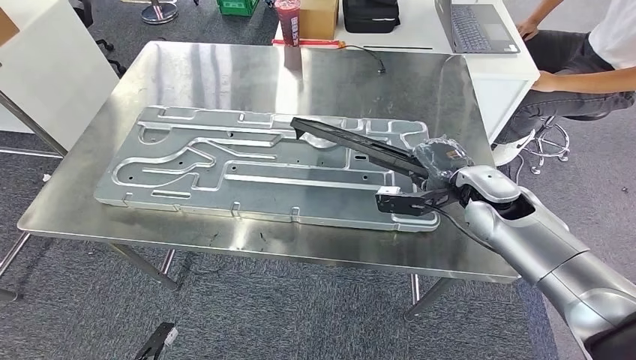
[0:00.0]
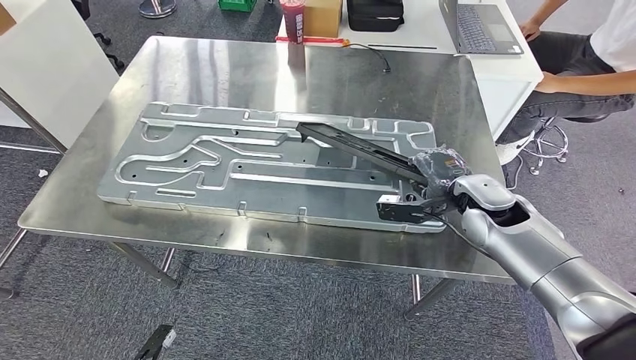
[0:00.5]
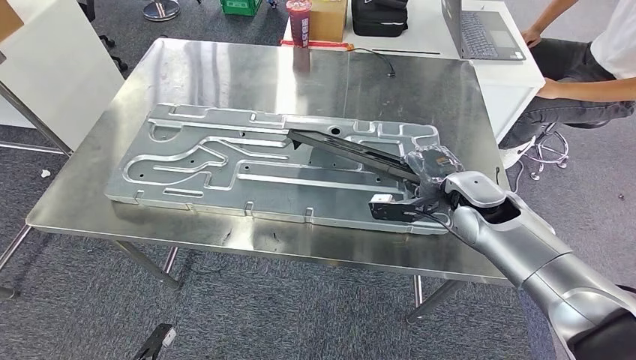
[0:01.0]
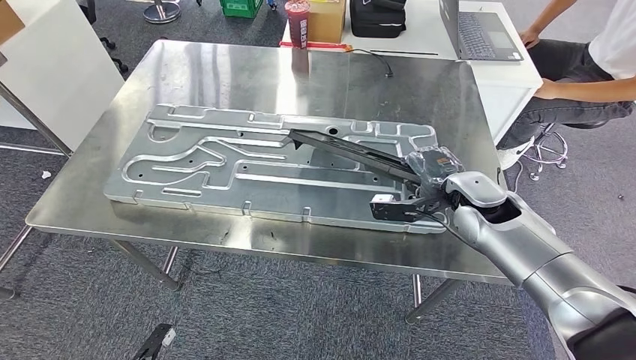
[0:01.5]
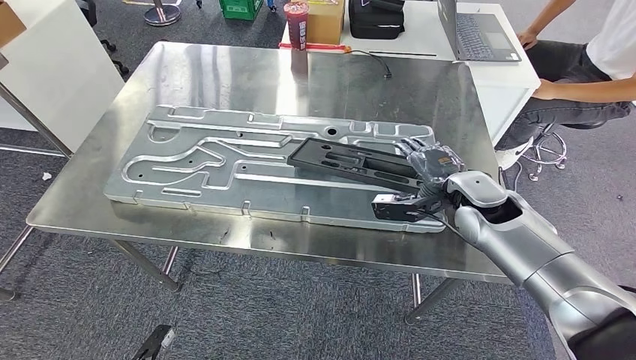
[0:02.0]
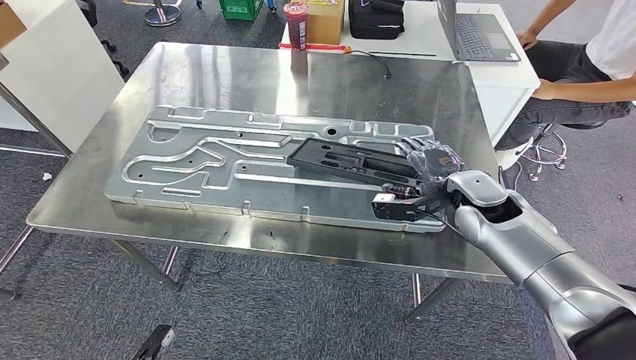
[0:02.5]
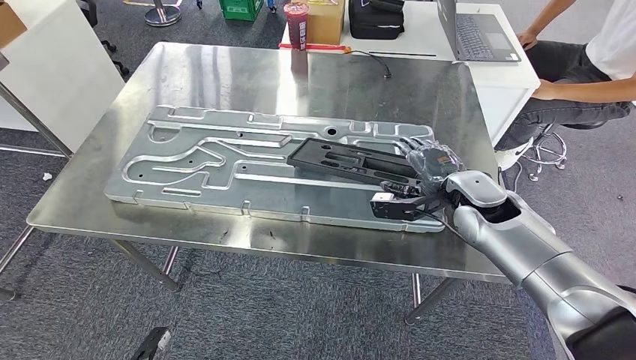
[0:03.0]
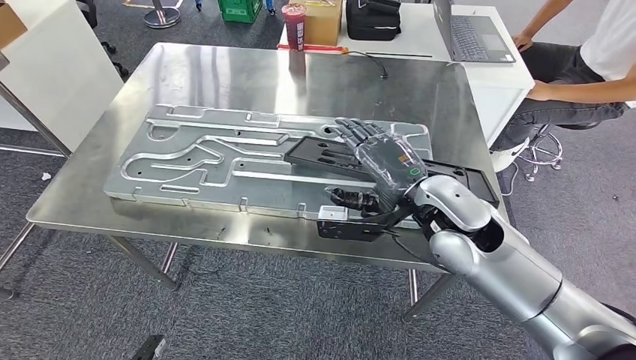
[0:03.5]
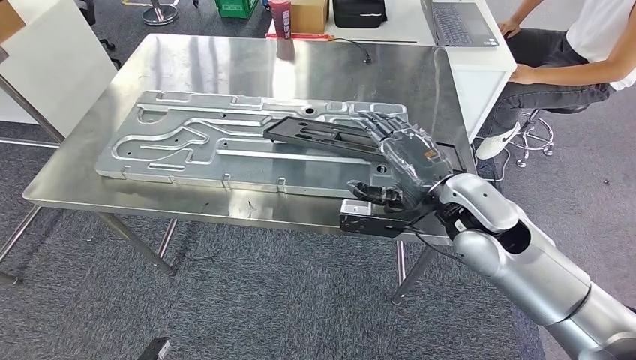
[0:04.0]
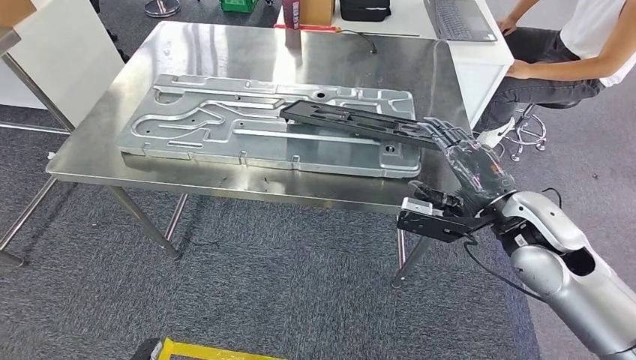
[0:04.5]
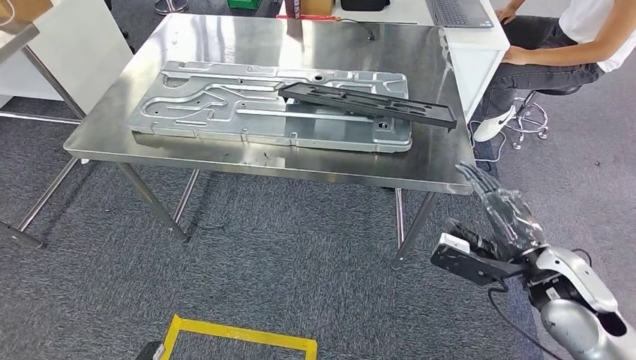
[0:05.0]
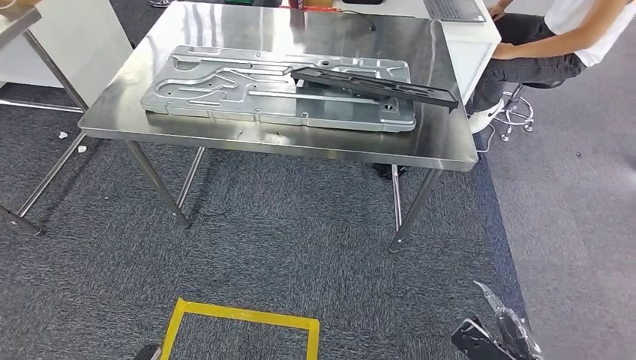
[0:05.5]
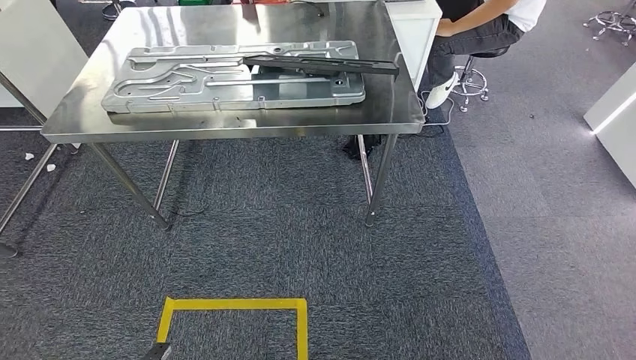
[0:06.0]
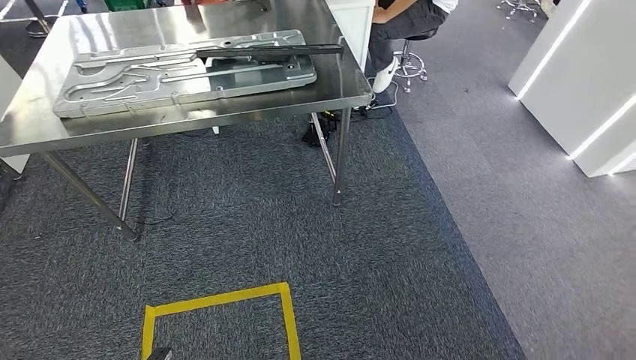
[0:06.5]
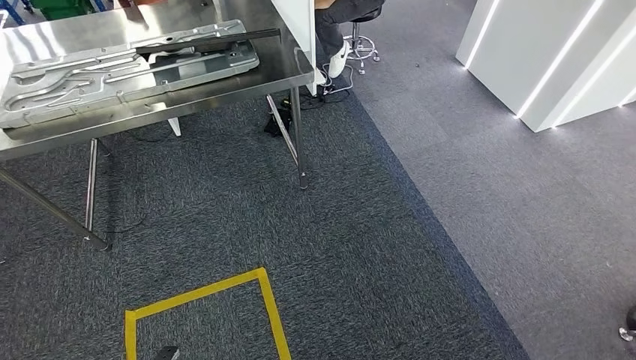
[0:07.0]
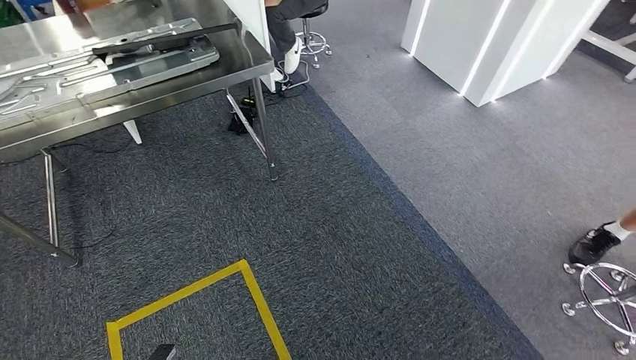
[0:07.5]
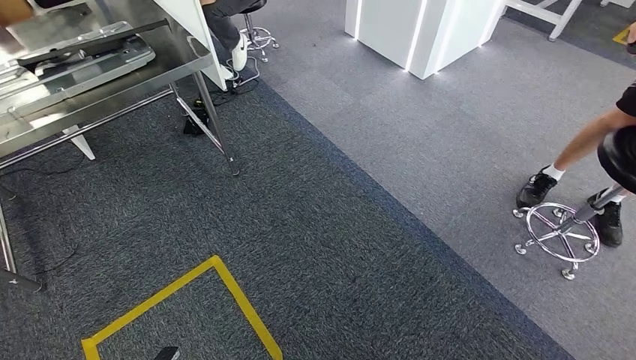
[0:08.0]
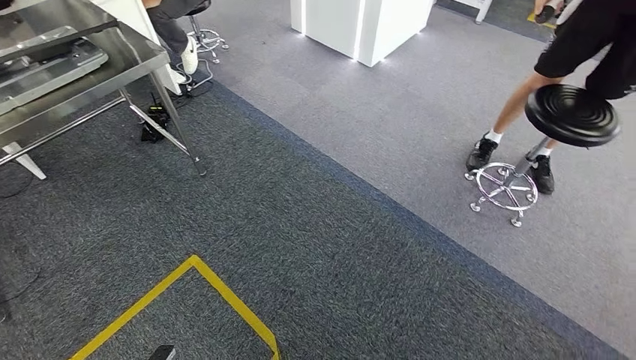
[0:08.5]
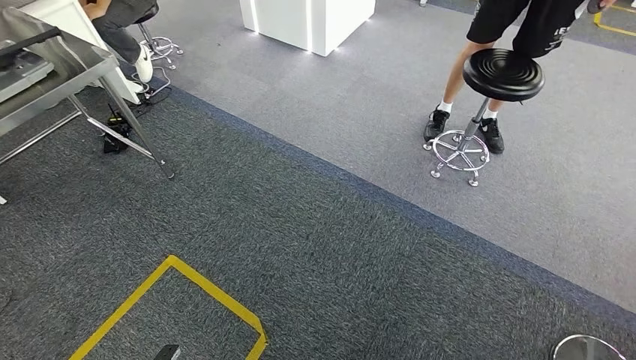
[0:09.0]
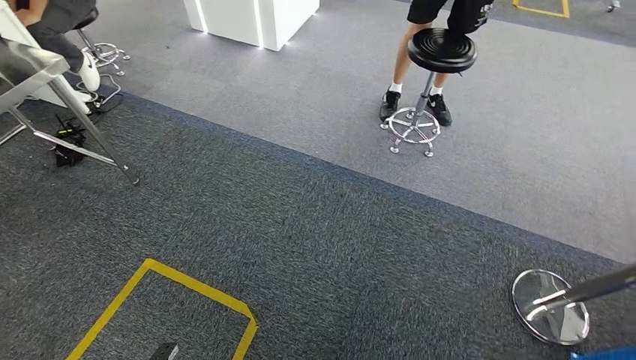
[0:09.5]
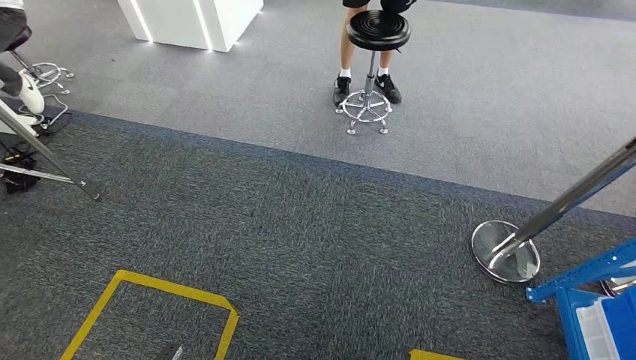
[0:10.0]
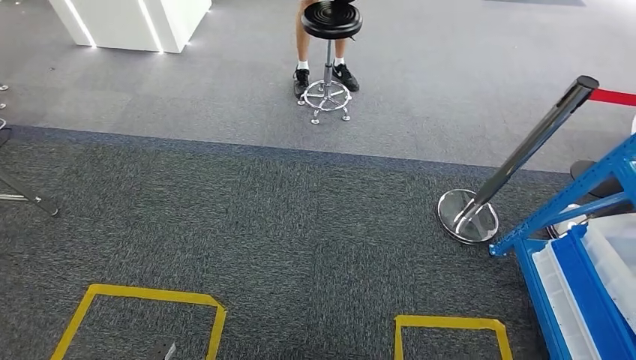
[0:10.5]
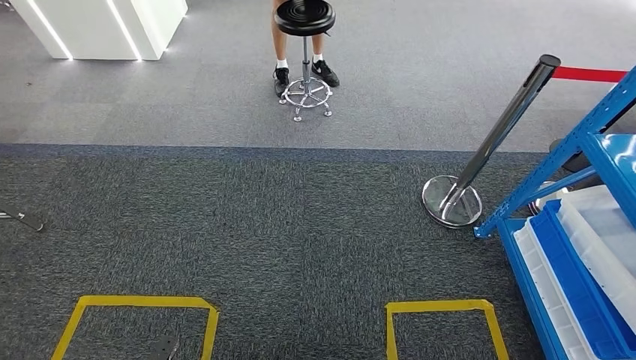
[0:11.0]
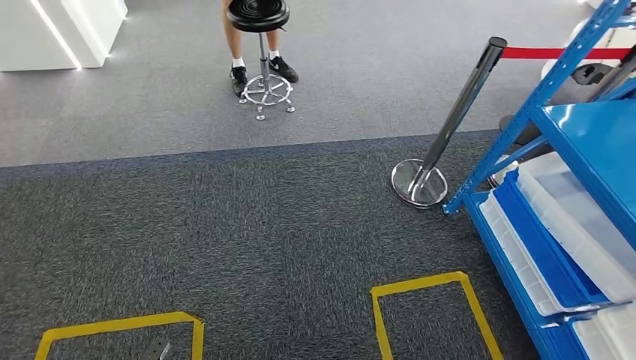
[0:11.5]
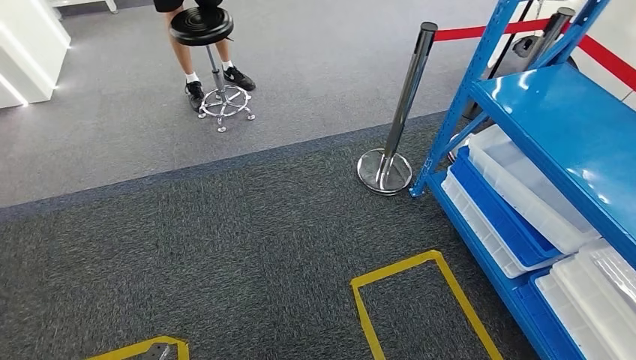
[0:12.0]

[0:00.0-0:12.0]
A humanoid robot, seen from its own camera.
Step, 0:00.0 to 0:05.0: Insert the large material into the corresponding slot on the workbench.

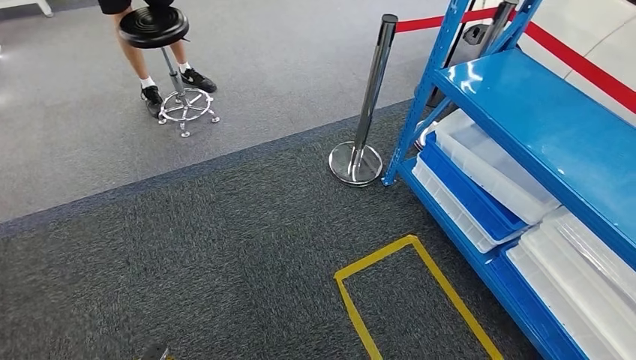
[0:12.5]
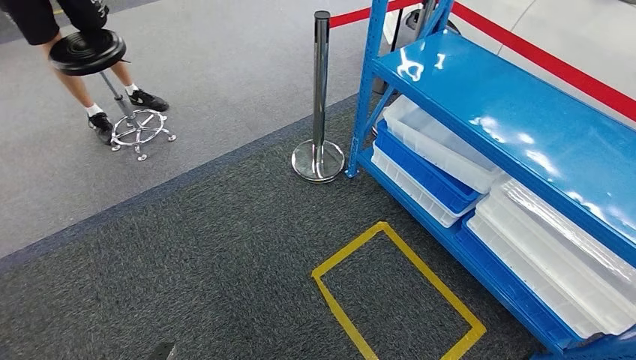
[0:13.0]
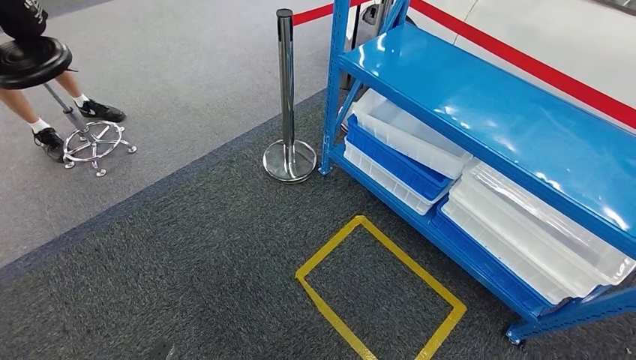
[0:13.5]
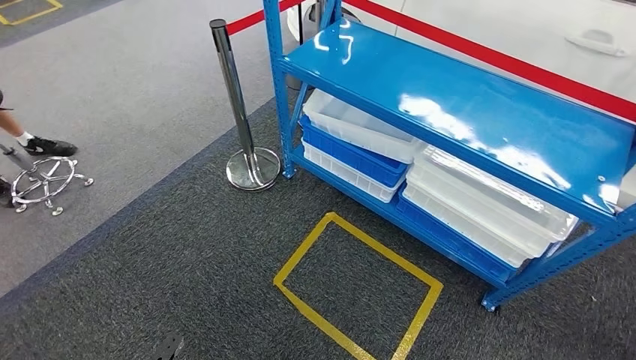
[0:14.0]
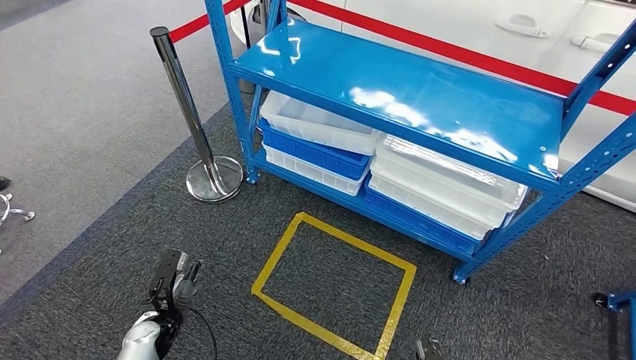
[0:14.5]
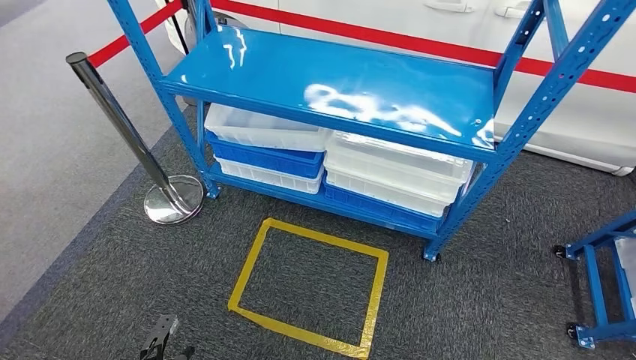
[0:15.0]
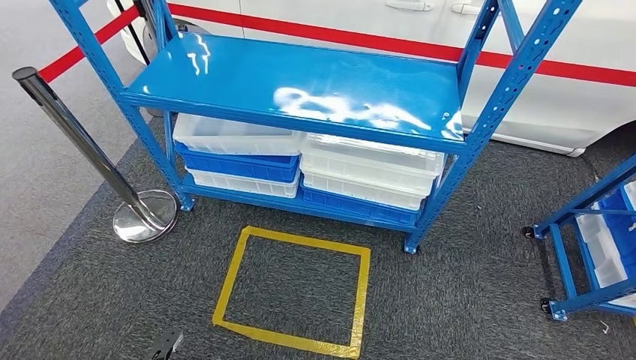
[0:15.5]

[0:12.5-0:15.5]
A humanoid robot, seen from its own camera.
Step, 0:12.5 to 0:15.5: Move to the initial position of the shelf.
